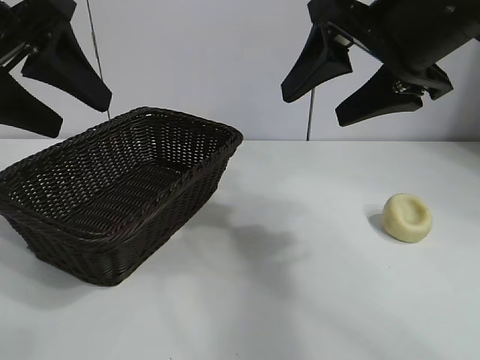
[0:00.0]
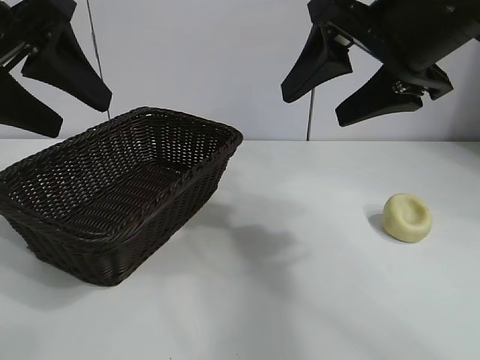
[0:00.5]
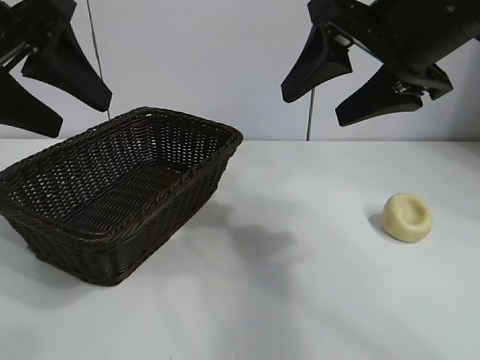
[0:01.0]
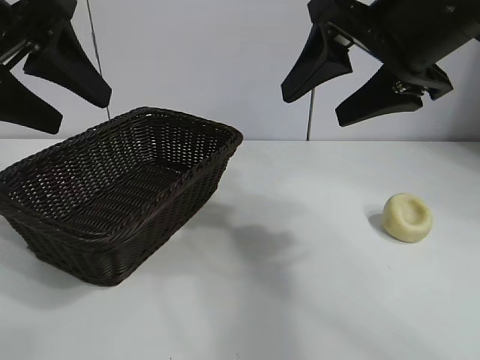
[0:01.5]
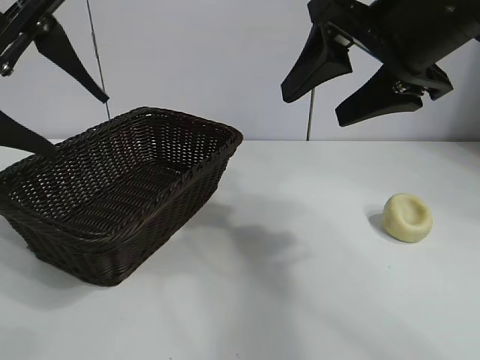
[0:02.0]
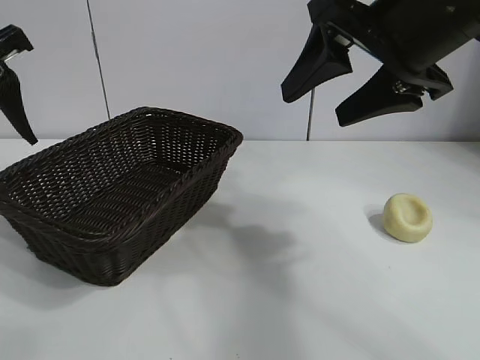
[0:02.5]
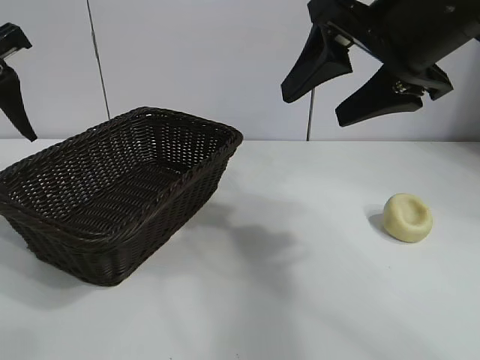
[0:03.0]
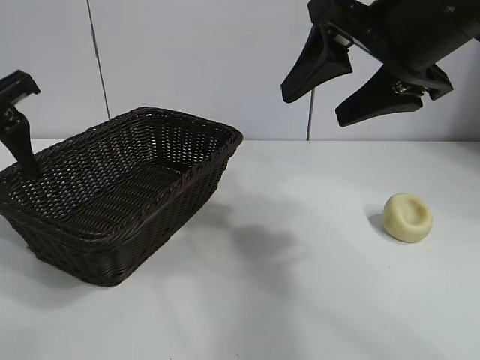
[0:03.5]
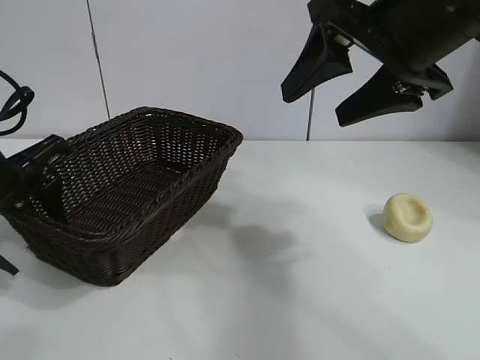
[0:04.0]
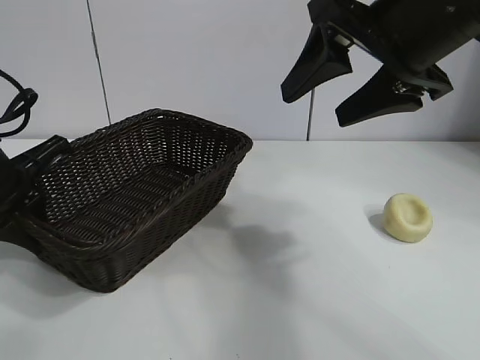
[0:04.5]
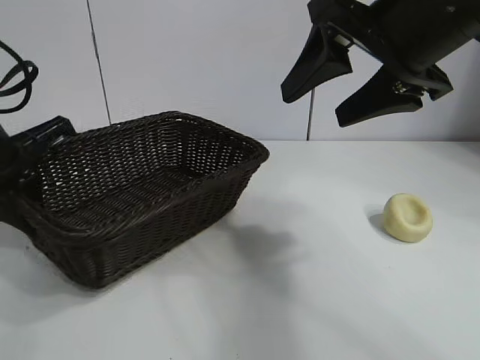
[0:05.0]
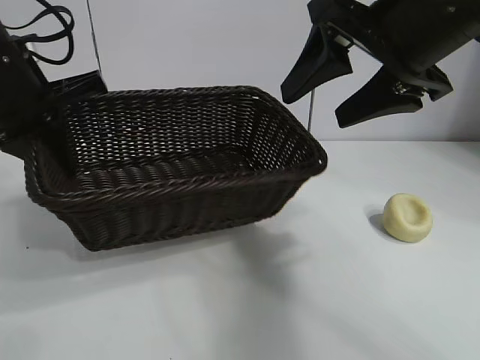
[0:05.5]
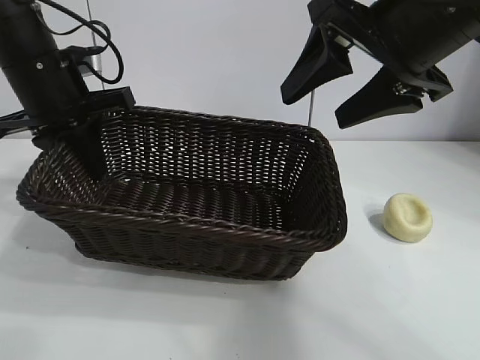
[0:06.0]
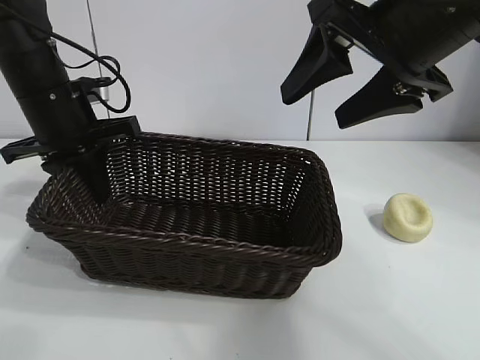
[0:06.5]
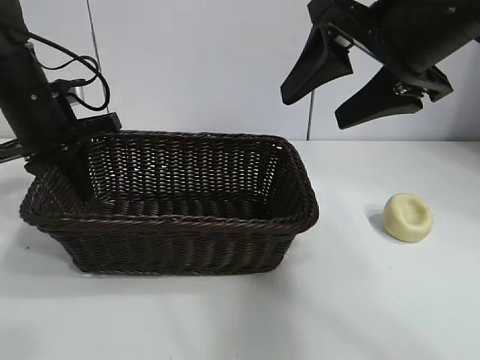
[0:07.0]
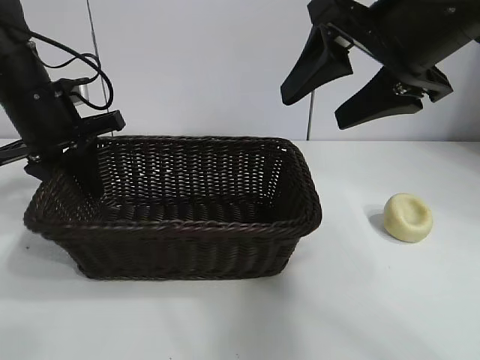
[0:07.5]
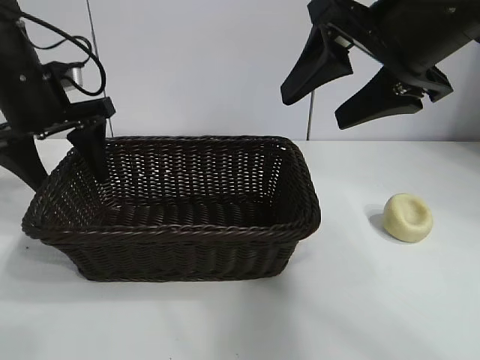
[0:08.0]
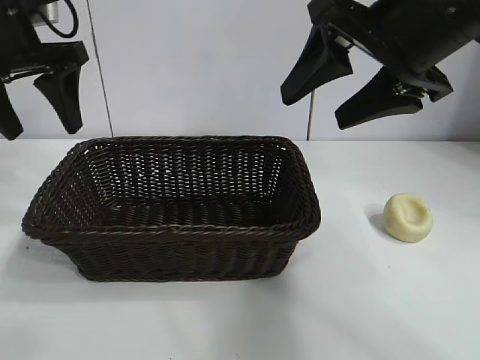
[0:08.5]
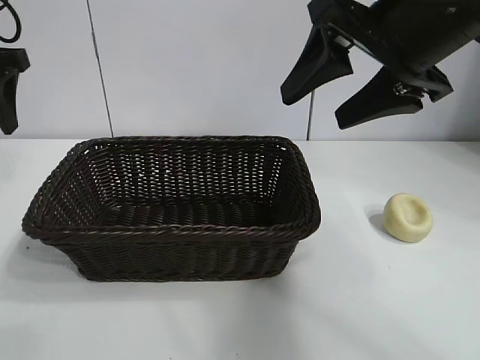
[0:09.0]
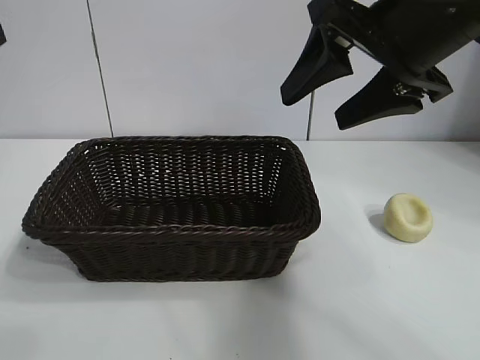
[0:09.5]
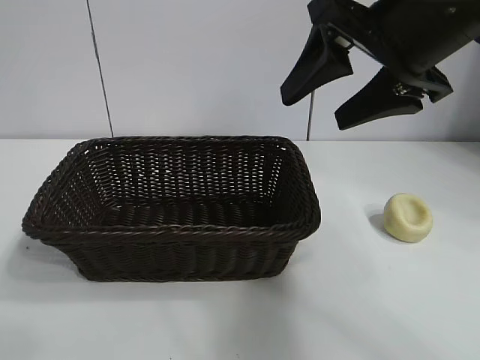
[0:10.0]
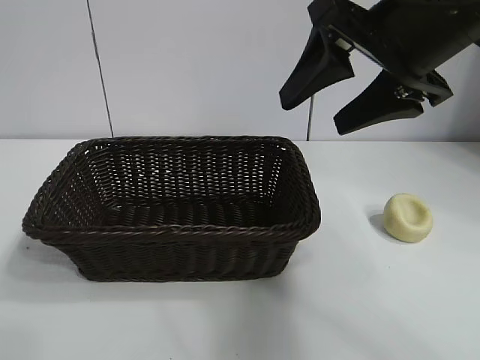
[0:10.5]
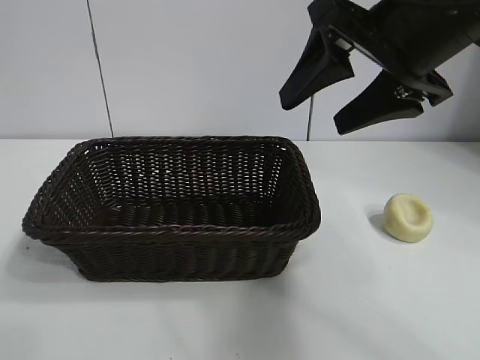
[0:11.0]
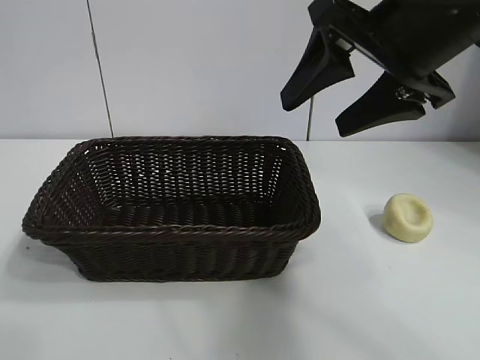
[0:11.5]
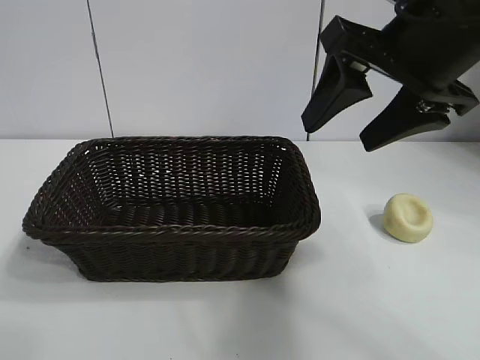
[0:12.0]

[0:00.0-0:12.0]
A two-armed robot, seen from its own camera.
Task of the whole recording: pick up the egg yolk pastry and put it into the basket.
Step, 0:02.0 to 0:04.5: Grasp the basket with left gripper.
Step, 0:05.0 to 0:08.0: Place the basket in the center of view with left gripper.

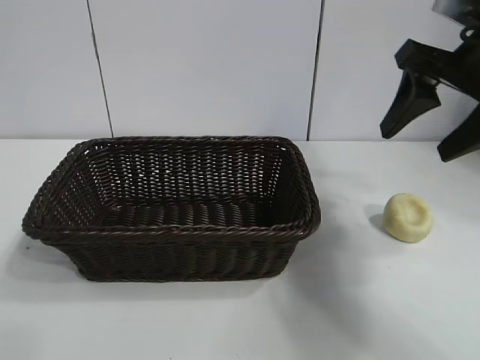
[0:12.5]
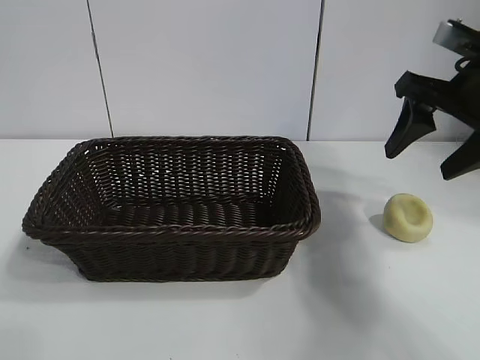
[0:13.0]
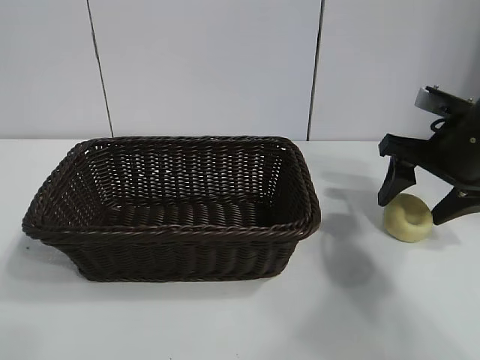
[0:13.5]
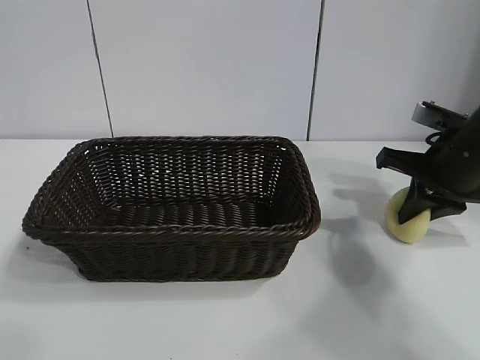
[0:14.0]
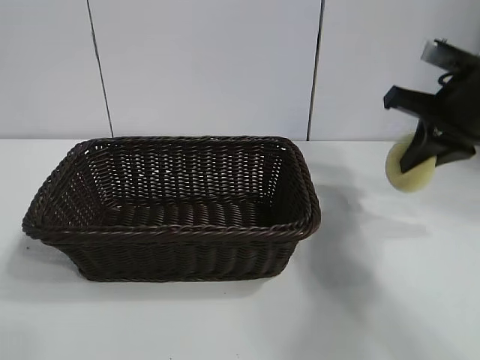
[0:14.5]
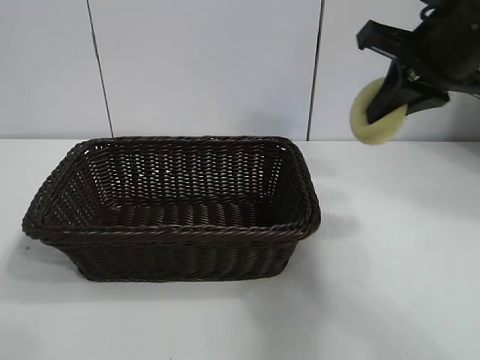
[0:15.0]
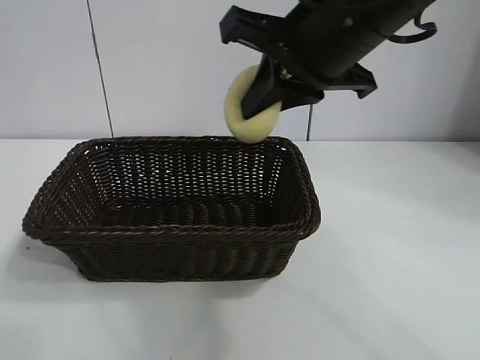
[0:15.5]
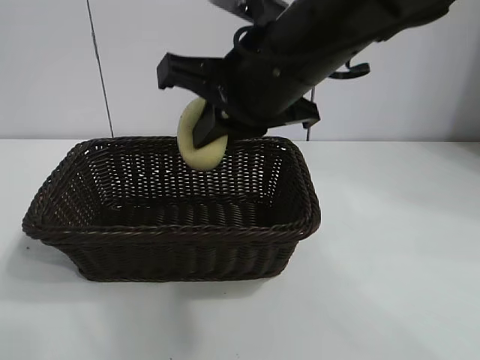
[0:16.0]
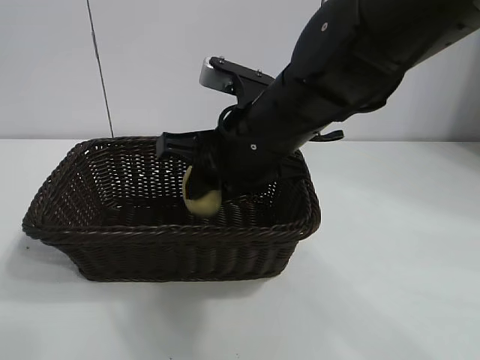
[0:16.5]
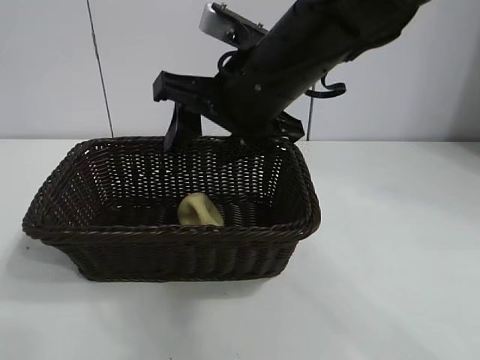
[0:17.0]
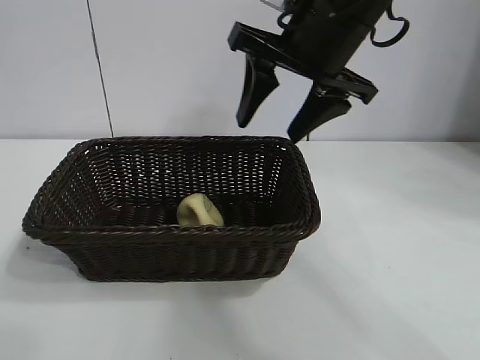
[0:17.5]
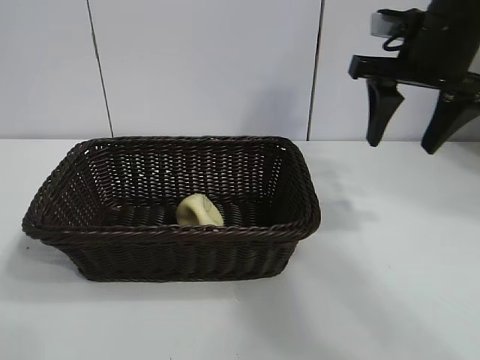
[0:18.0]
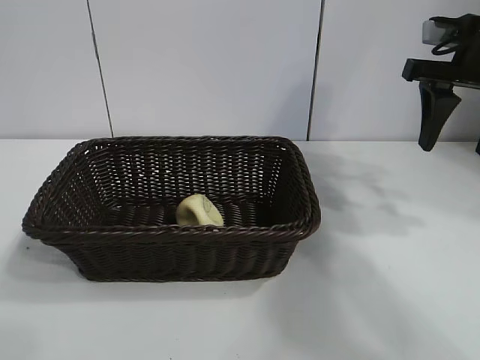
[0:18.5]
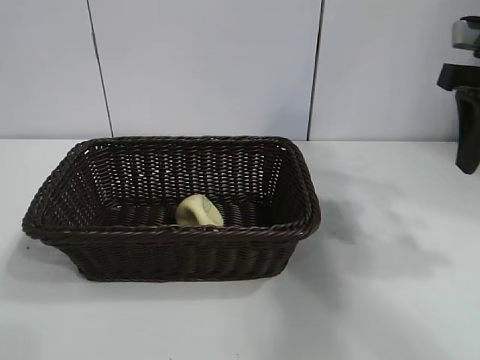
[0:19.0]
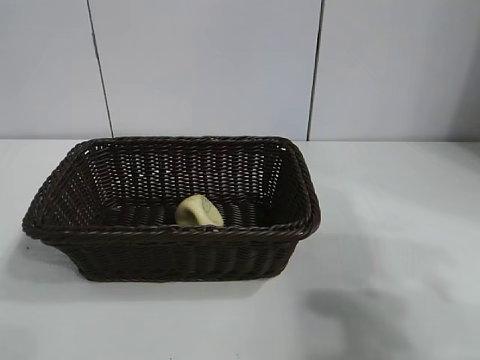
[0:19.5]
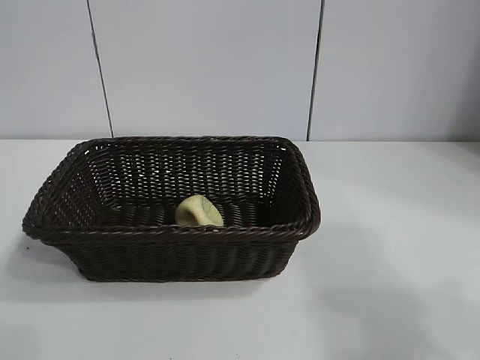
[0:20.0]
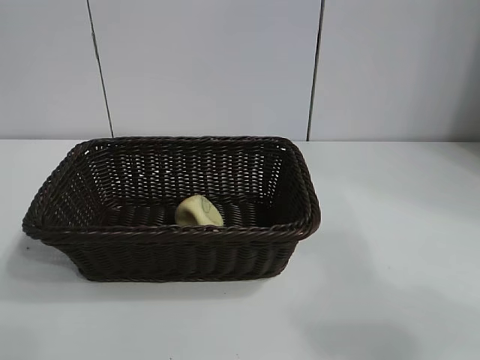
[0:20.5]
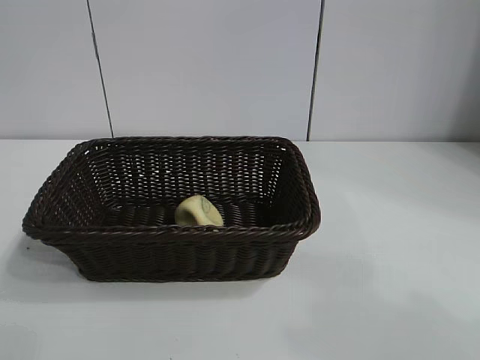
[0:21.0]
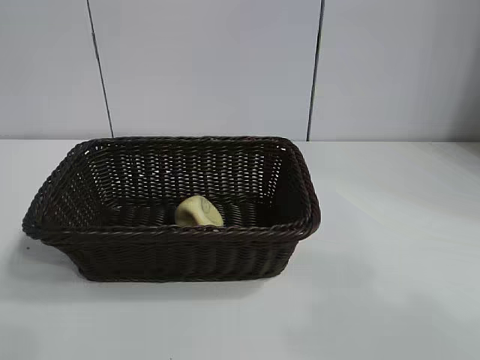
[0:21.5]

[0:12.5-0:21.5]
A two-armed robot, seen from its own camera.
Task of the whole recording: pick up the egg yolk pastry and put it into the basket.
Step, 0:14.5 to 0:16.5: Place the egg yolk pastry in the basket with right gripper.

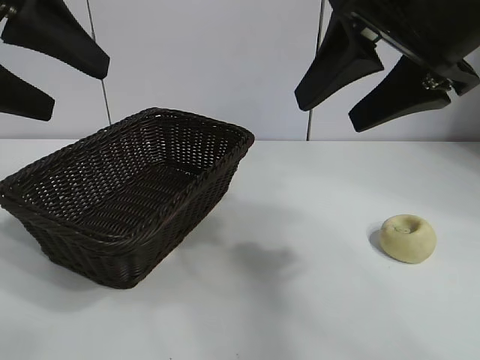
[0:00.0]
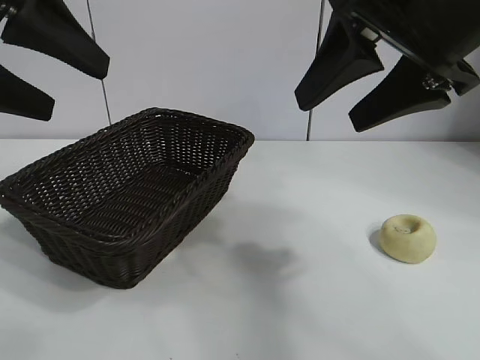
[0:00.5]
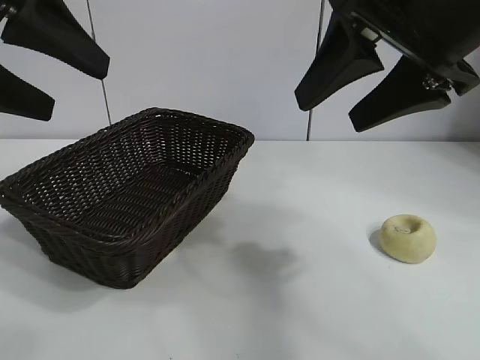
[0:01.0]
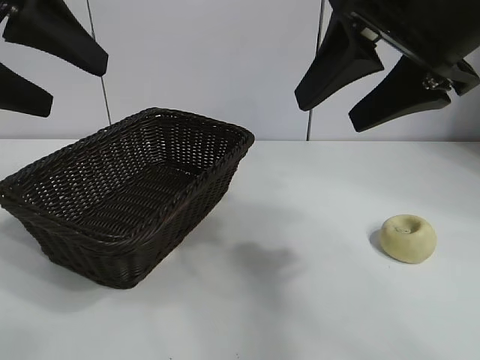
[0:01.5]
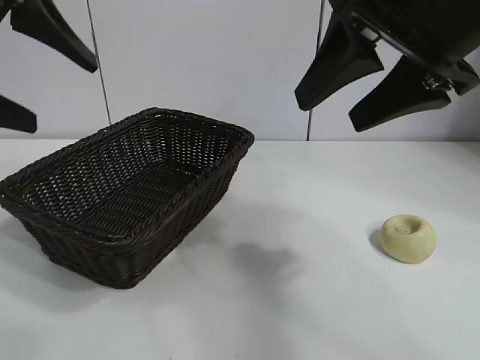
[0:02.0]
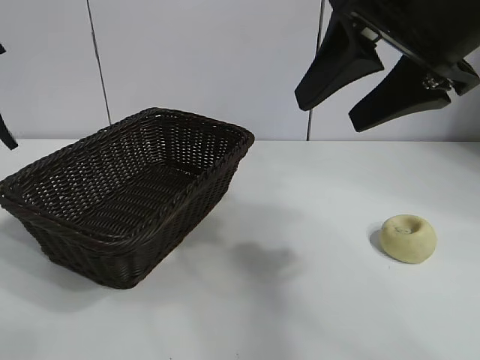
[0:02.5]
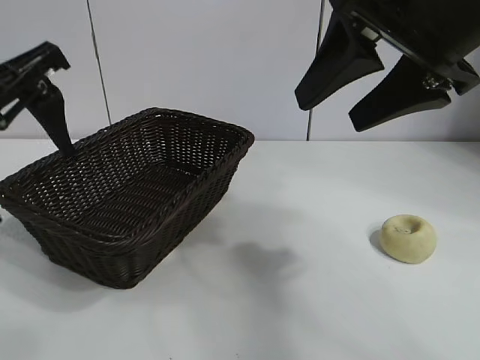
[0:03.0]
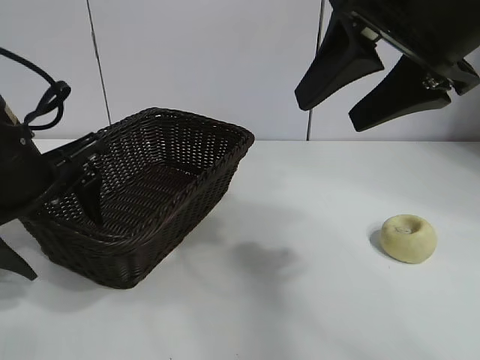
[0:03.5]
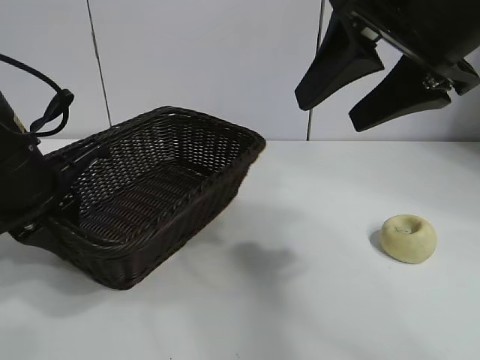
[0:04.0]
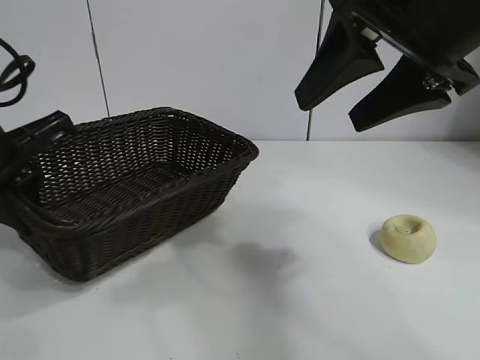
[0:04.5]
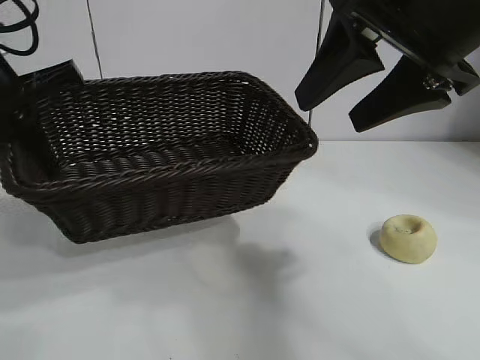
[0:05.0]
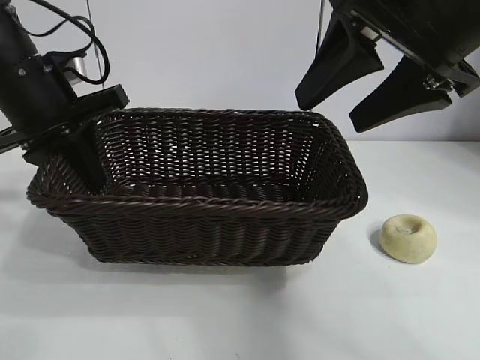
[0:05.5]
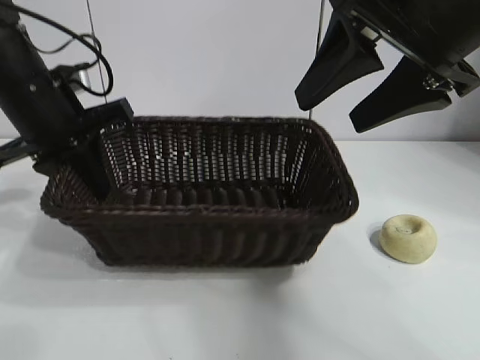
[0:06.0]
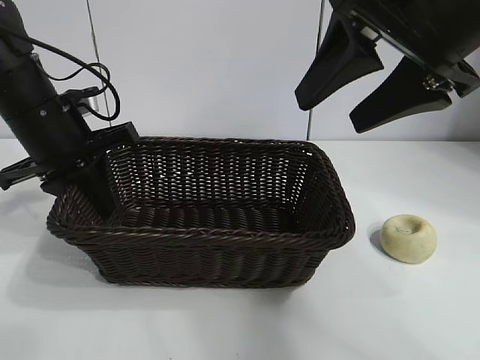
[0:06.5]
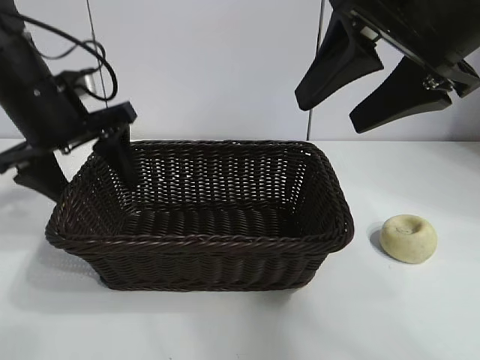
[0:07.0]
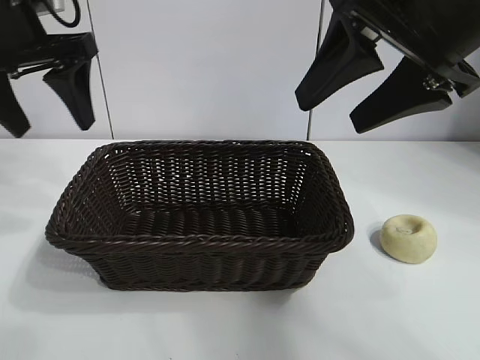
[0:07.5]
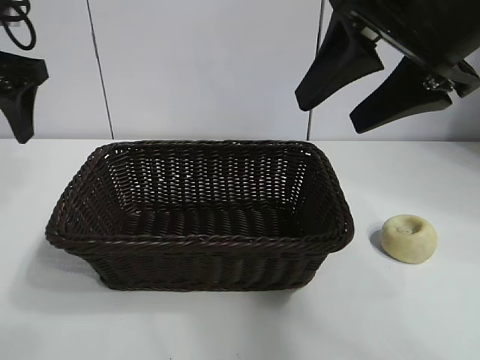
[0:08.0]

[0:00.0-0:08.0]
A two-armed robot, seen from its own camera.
Task of the whole recording: pick up the egg yolk pastry and put it into the basket.
Step, 0:01.5 to 0:04.0: Grasp the basket with left gripper.
Step, 0:04.5 to 0:07.0: Place the basket in the center of view with left gripper.
